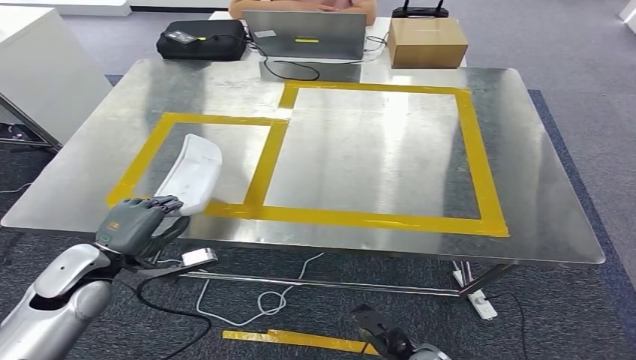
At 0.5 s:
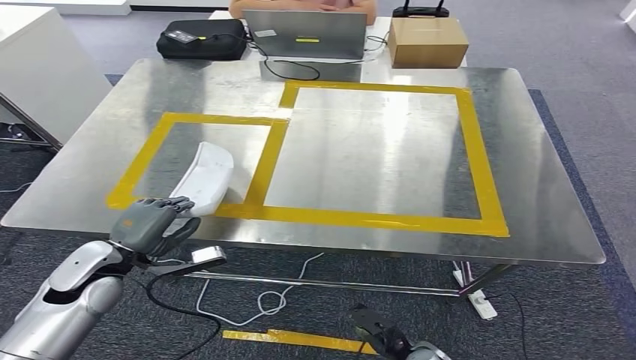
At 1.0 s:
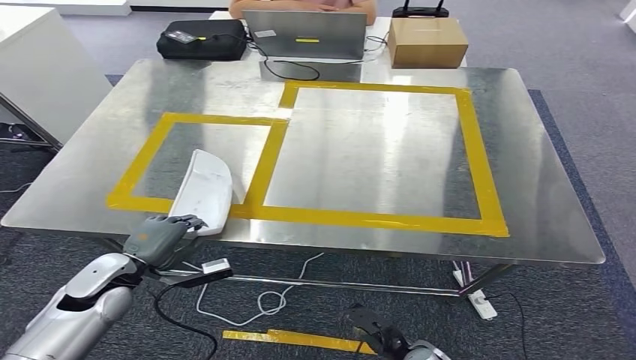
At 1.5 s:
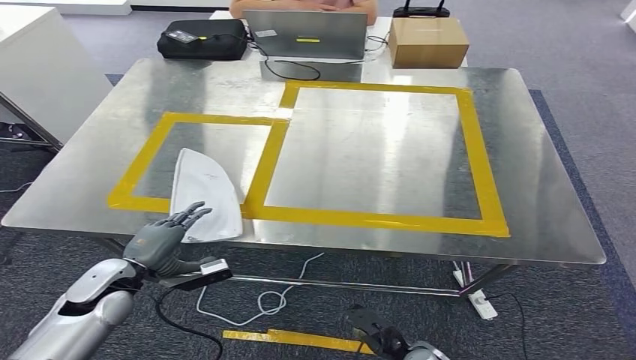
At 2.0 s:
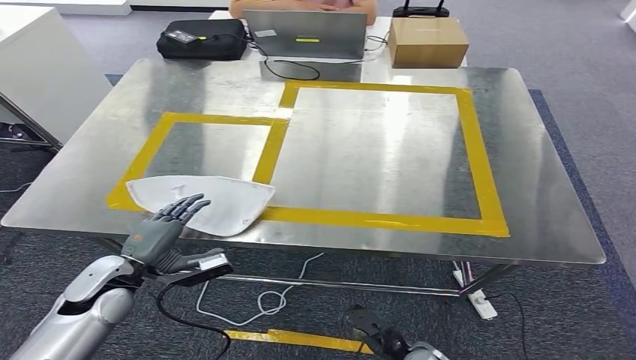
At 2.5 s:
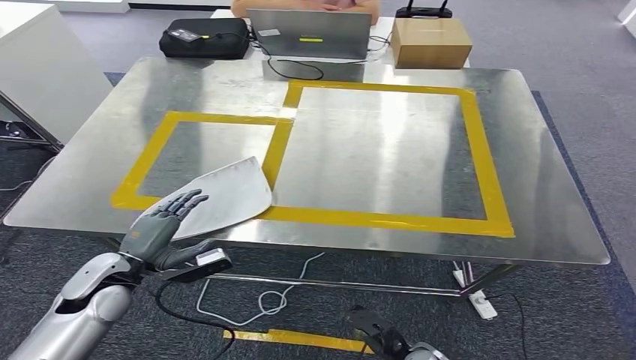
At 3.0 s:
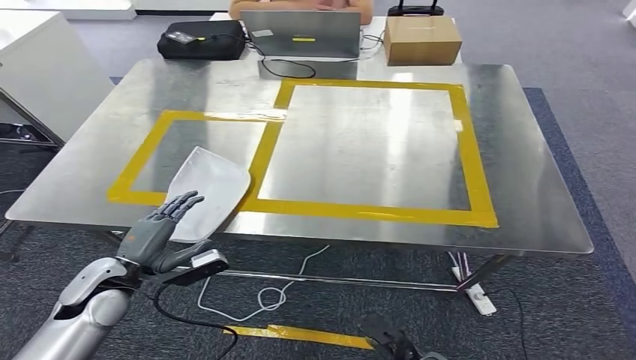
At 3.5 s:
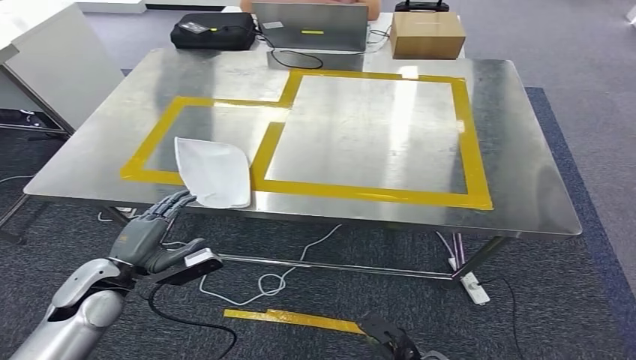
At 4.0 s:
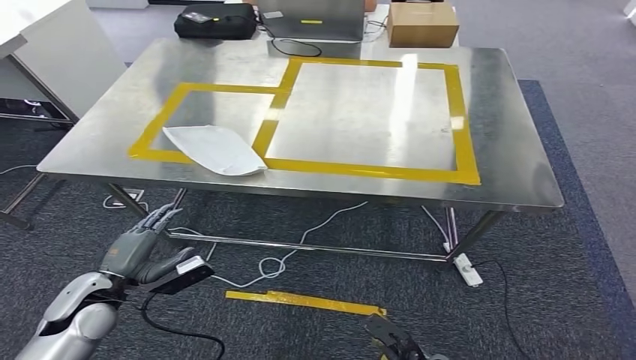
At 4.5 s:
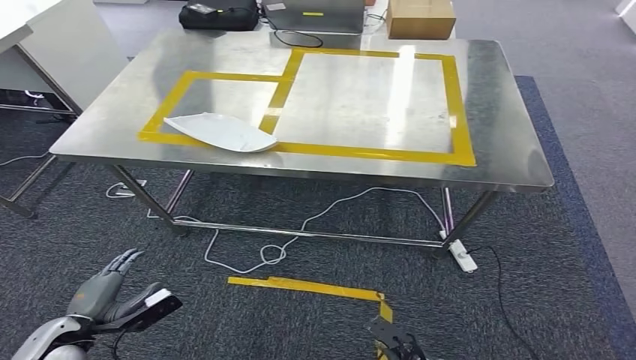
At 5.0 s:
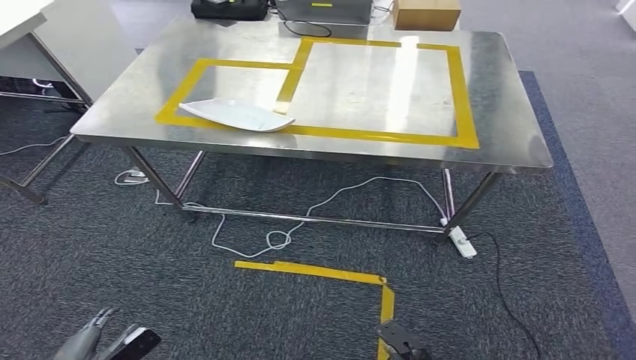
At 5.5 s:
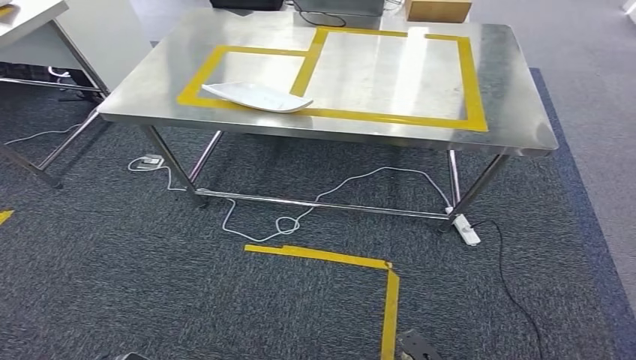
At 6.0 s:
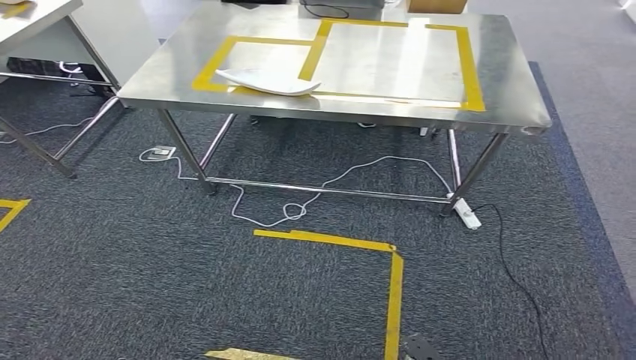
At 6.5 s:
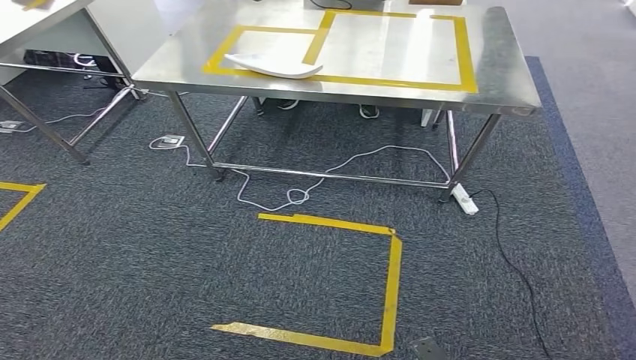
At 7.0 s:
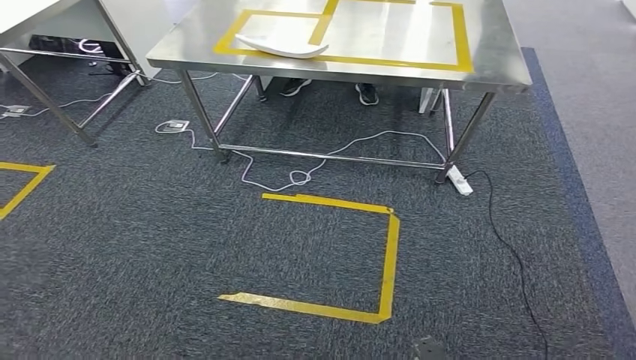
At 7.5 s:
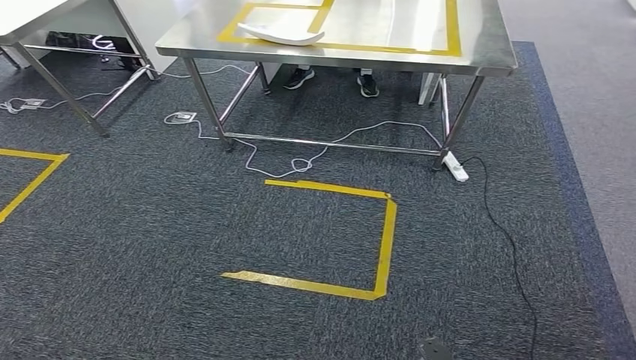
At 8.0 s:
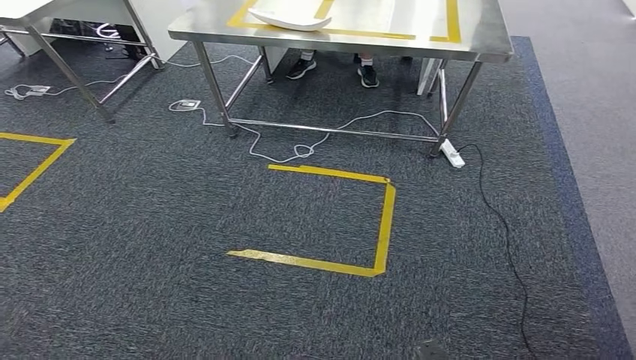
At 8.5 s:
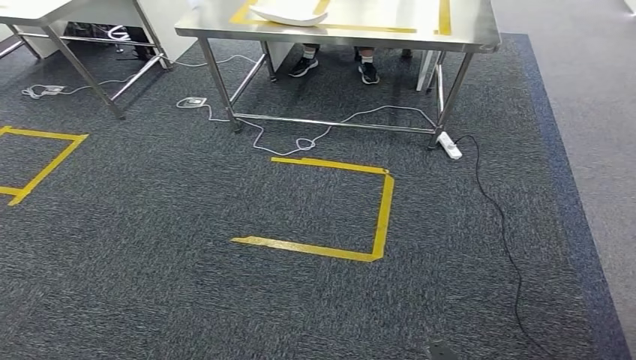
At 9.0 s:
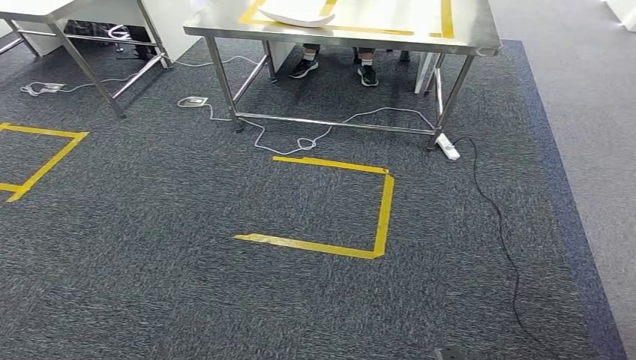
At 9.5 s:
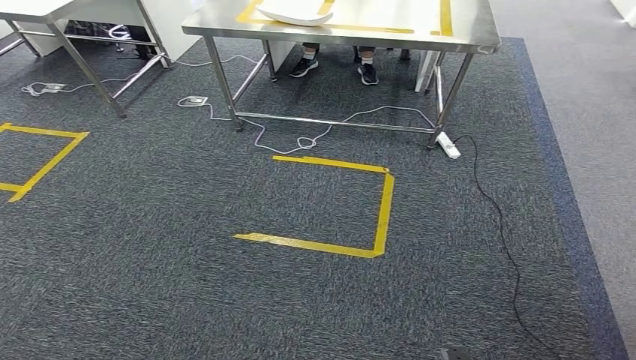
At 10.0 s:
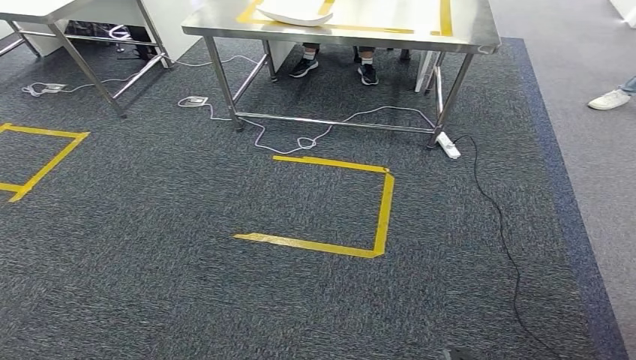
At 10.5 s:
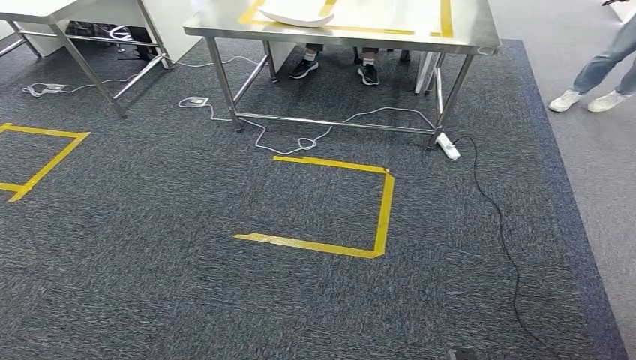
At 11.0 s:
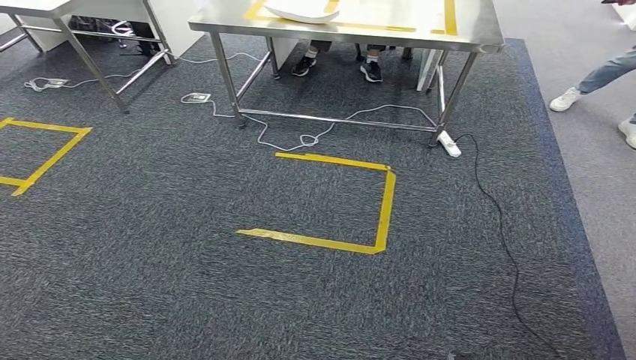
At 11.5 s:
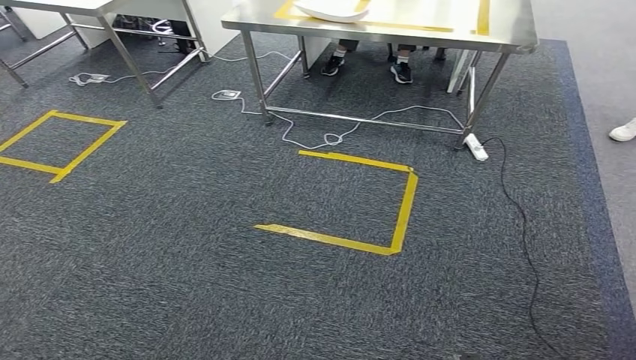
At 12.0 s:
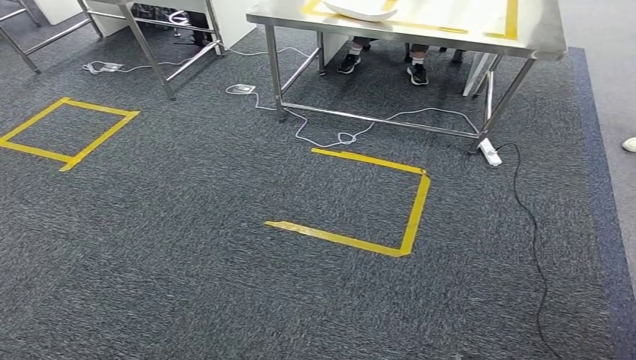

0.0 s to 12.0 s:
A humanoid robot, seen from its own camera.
Step, 0.0 to 7.5 s: Insert the small parts into the corresponding holes on the workbench.
8.0 to 10.0 s: The hands stay close to where they were, moving slightly.

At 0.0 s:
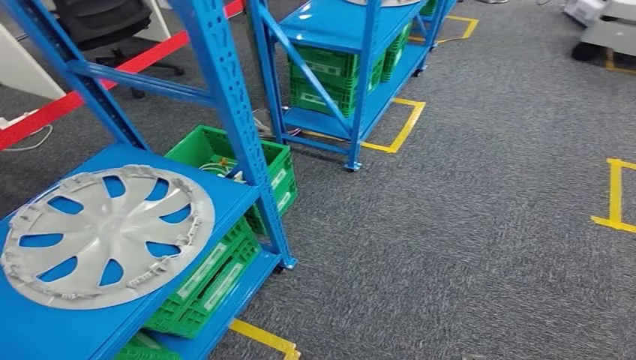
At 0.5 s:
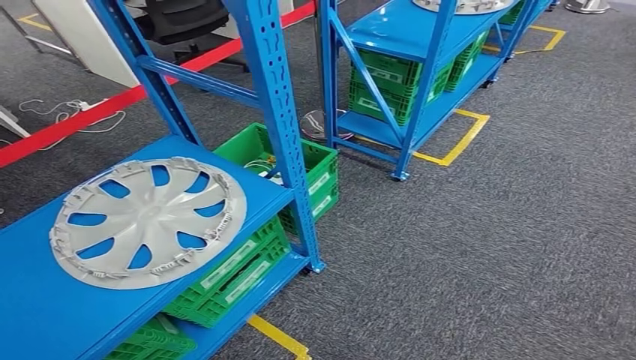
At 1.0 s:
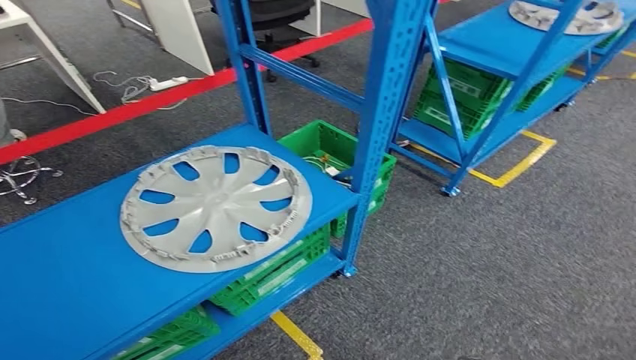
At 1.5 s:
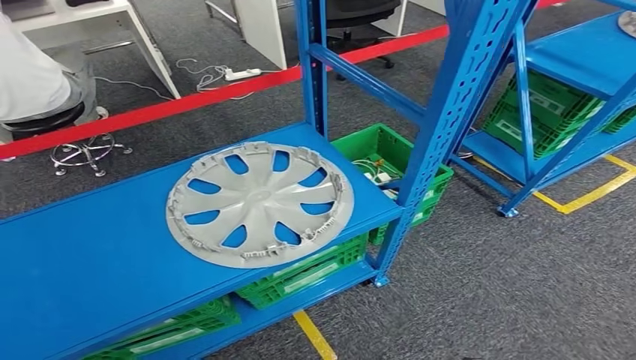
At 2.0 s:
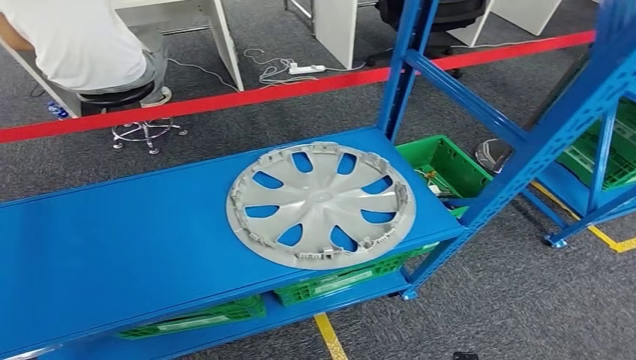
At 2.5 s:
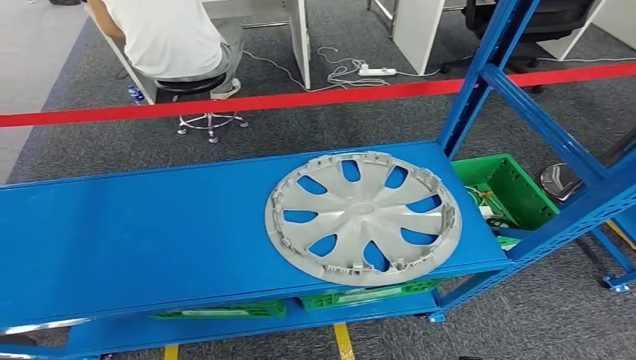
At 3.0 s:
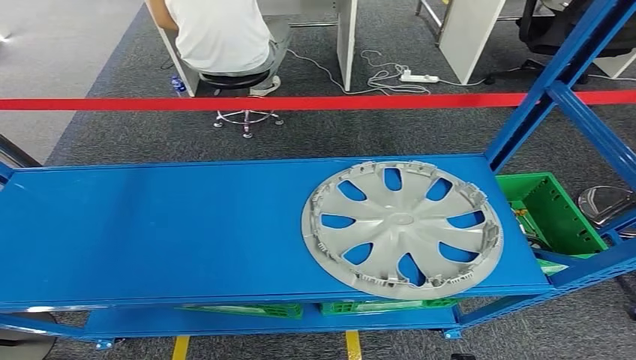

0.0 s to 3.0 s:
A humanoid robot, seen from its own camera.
Step, 0.0 to 3.0 s: Move to the initial position at the workbench.
